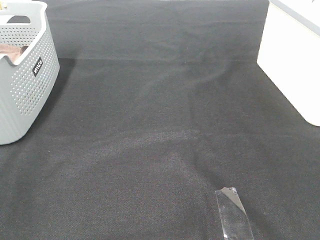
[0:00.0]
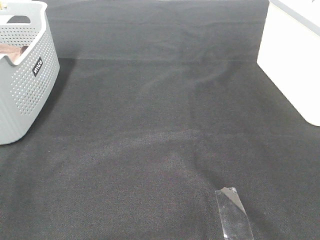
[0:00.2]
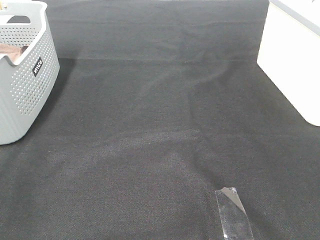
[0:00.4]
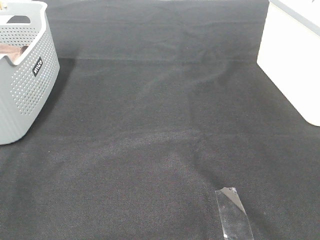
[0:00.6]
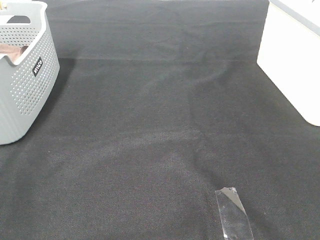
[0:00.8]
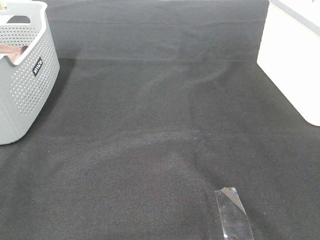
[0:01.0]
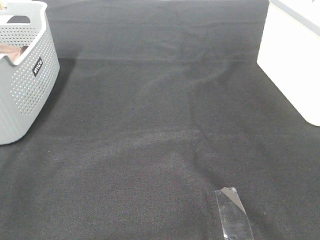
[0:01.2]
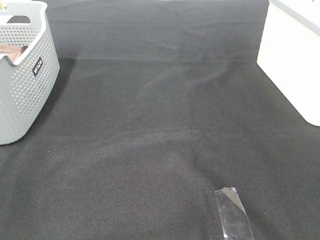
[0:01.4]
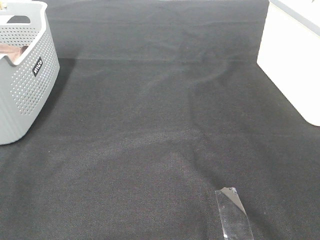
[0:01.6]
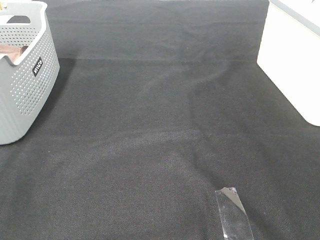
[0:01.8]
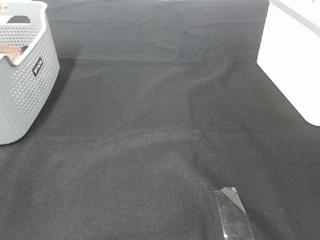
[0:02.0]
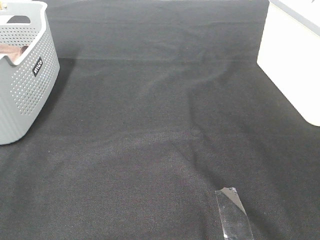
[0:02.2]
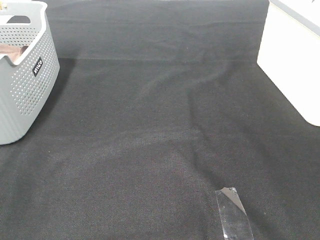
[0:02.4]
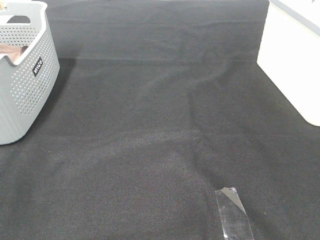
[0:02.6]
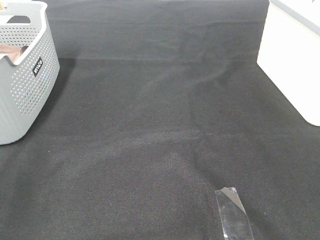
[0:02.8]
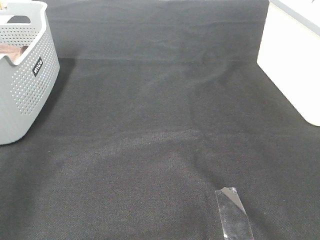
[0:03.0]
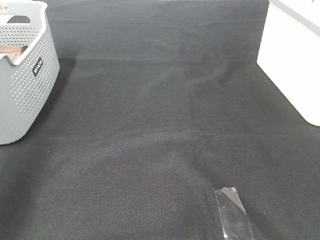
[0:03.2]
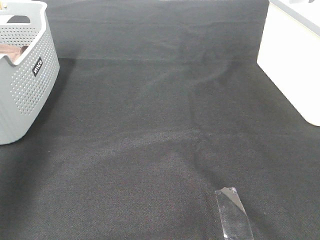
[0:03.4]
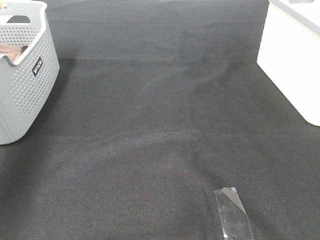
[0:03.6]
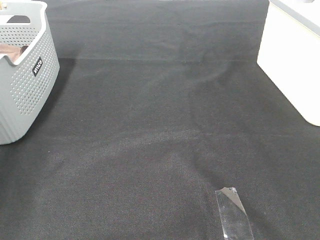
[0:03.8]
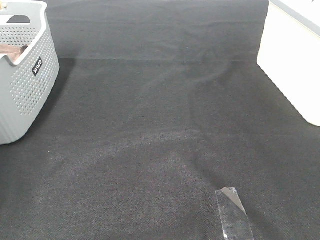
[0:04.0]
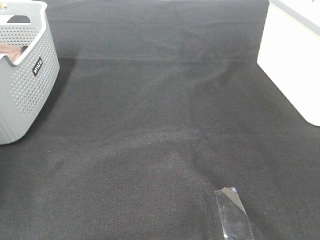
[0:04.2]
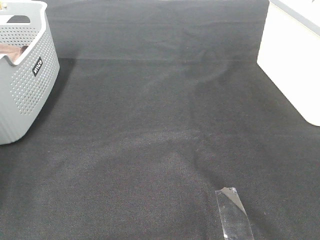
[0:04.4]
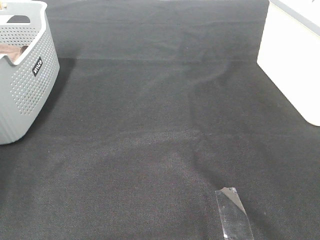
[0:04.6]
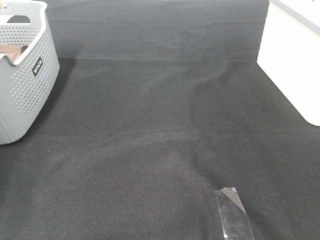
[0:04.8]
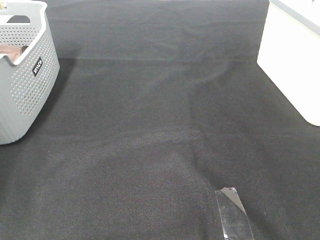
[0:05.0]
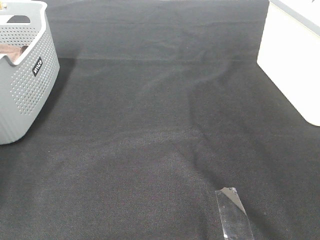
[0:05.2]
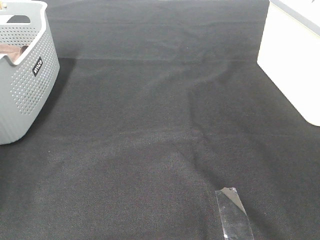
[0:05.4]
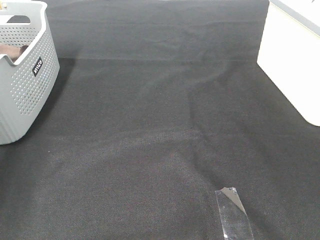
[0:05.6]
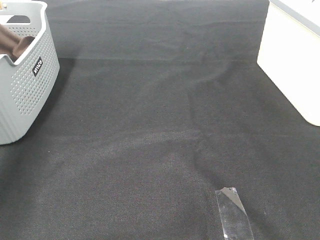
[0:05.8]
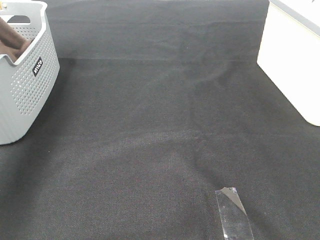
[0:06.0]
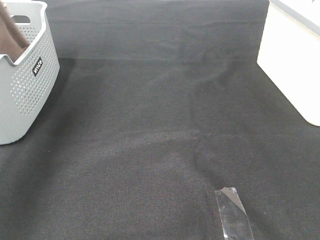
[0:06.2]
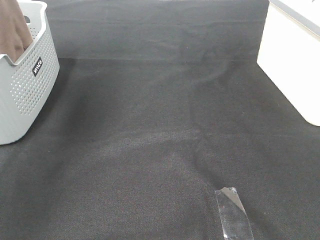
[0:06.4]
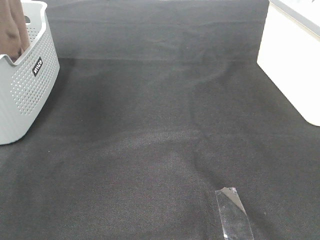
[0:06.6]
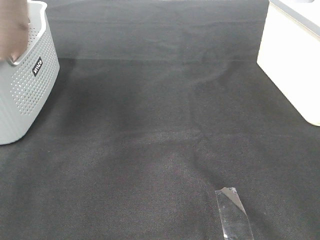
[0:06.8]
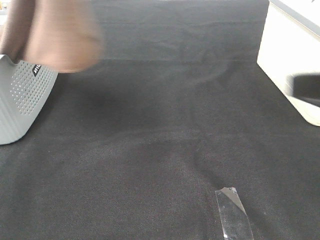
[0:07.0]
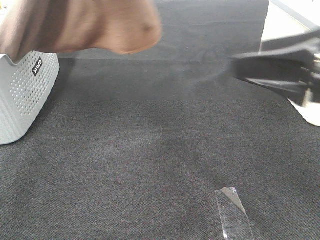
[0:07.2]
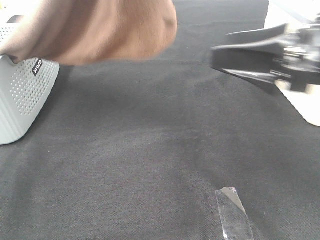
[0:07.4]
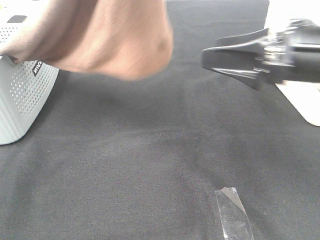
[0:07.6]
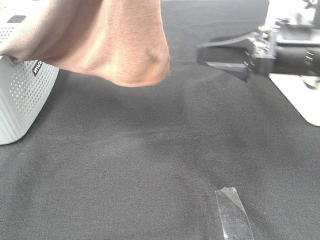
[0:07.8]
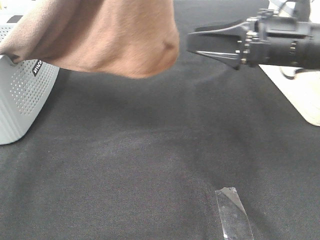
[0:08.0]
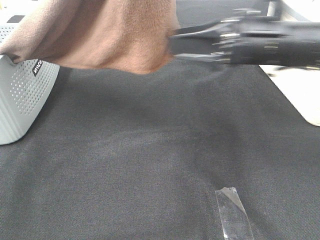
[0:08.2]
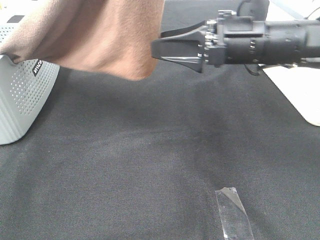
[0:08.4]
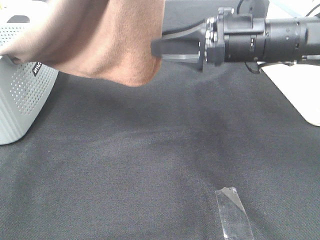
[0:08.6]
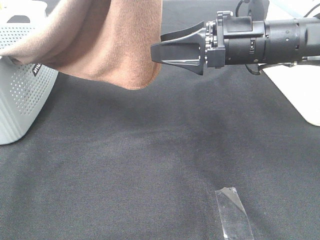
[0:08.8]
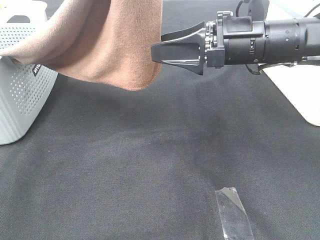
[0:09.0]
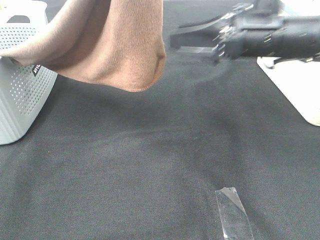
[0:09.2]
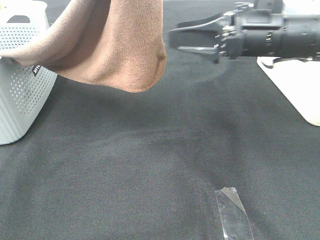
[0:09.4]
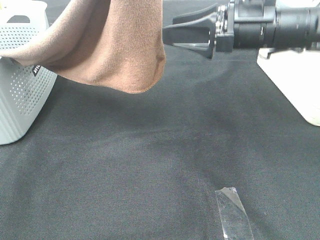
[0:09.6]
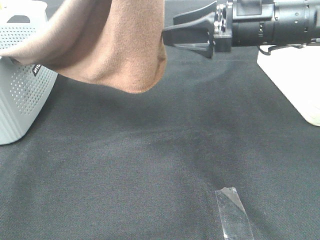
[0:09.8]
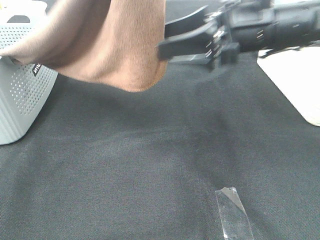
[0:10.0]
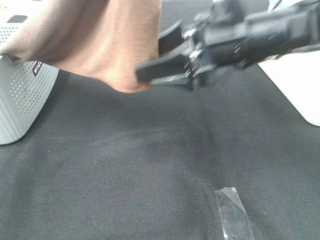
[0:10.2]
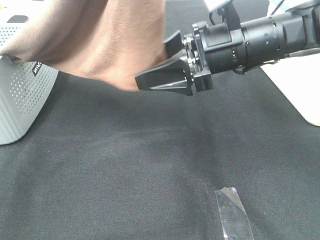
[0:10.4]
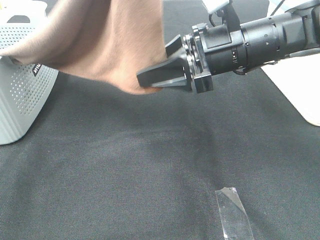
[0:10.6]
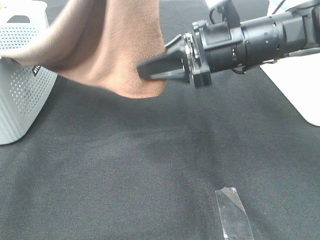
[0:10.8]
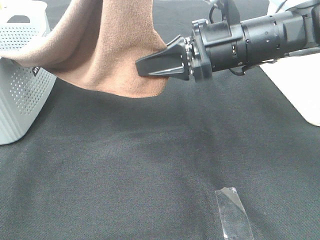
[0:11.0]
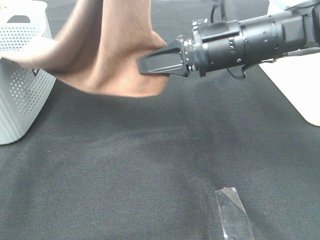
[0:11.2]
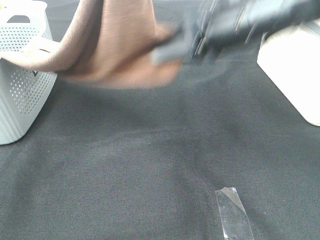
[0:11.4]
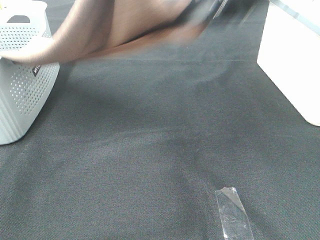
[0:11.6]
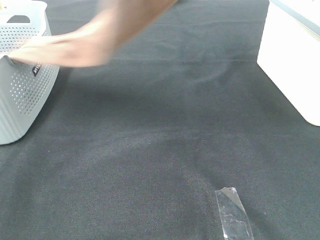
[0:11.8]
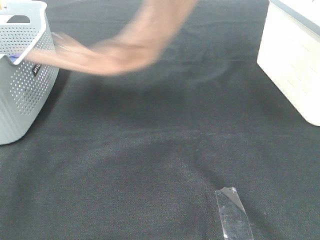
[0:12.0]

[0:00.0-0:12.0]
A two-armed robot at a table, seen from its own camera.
Task of the whole recording: Remove the towel and place it.
Step, 0:06.6 to 0:10.4: Right hand: grab a corner of the brown towel and straighten it.
0:00.0 to 0:01.6: Both grippers stay put.
0:04.4 to 0:06.0: The left gripper moves upward and to the right, roughly 25 cm, and closes up.
0:06.0 to 0:07.6: The right gripper is displaced forward by some 25 cm. Meanwhile the left gripper shifts about 30 cm to the right and backward.
0:07.6 to 0:09.0: The right gripper moves forward and to the left, roughly 10 cm.
0:09.0 to 0:10.4: The grippers make only small movements.
0:10.4 to 0:12.0: The right gripper moves upward, roughly 25 cm, and closes. The left gripper is displaced forward and to the left by some 10 cm.

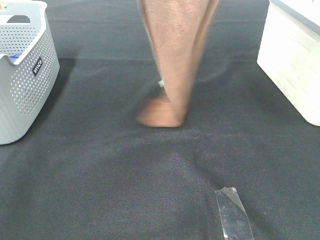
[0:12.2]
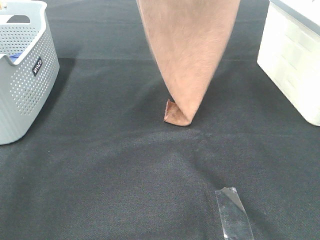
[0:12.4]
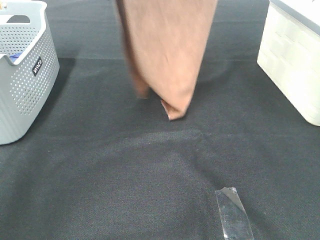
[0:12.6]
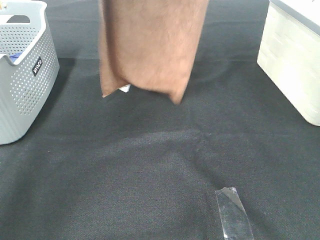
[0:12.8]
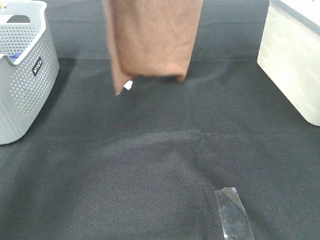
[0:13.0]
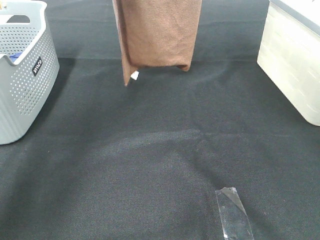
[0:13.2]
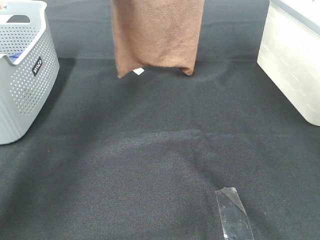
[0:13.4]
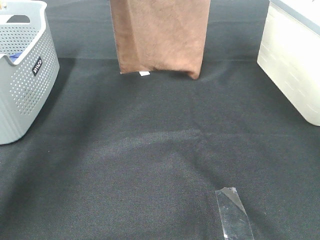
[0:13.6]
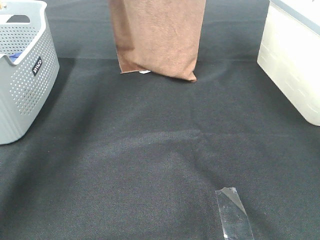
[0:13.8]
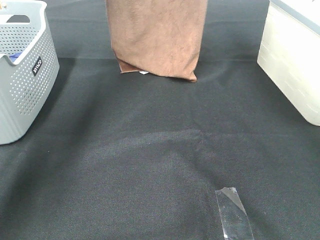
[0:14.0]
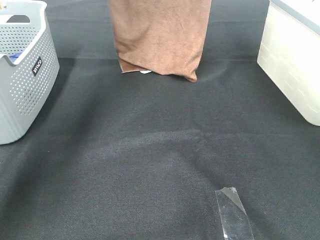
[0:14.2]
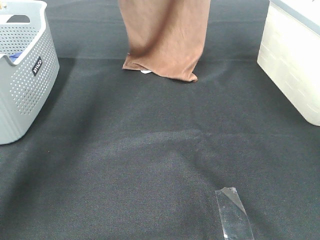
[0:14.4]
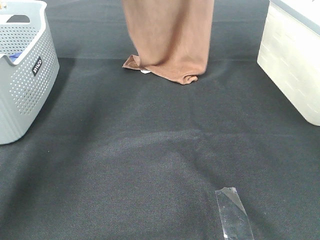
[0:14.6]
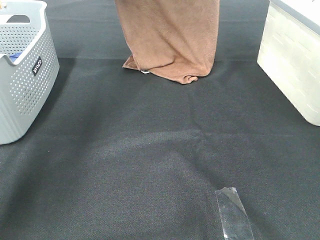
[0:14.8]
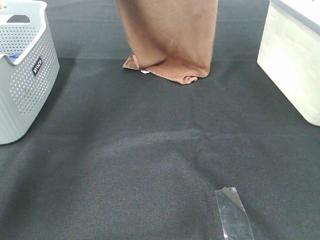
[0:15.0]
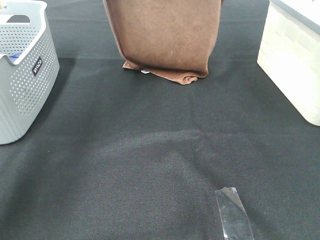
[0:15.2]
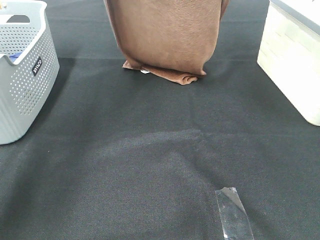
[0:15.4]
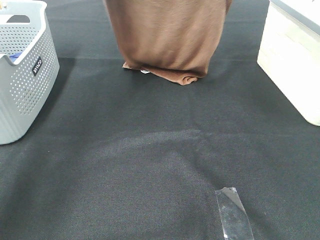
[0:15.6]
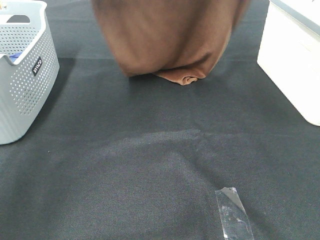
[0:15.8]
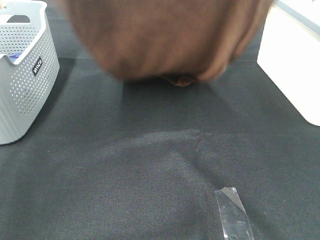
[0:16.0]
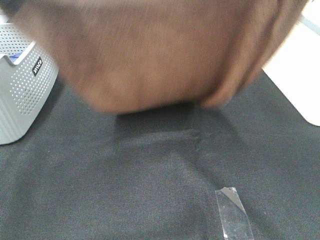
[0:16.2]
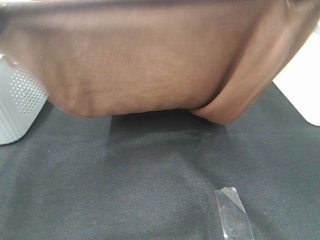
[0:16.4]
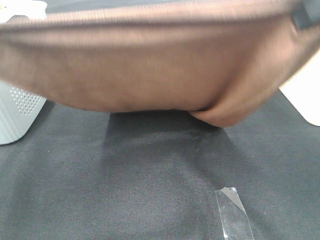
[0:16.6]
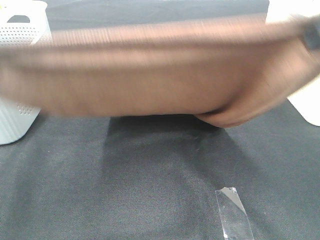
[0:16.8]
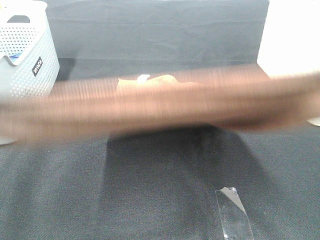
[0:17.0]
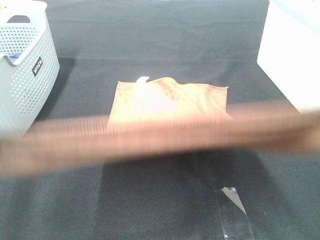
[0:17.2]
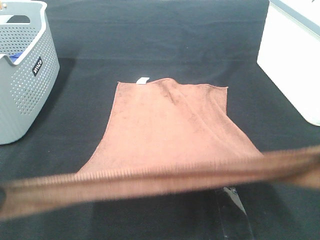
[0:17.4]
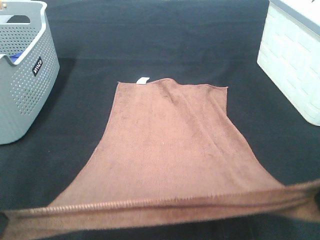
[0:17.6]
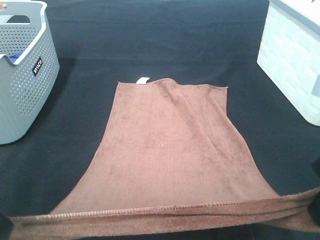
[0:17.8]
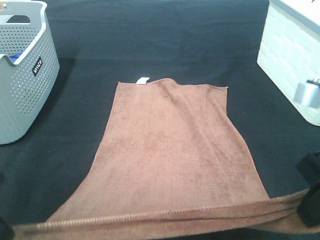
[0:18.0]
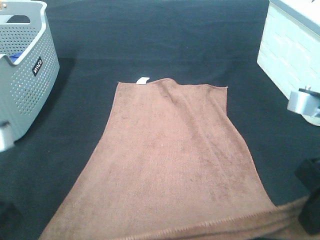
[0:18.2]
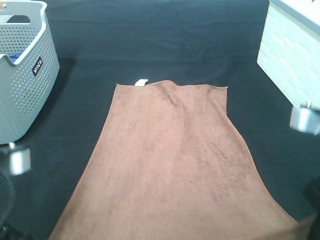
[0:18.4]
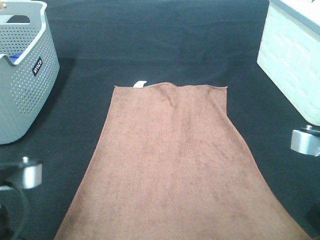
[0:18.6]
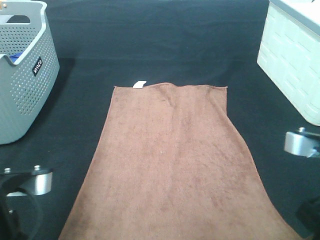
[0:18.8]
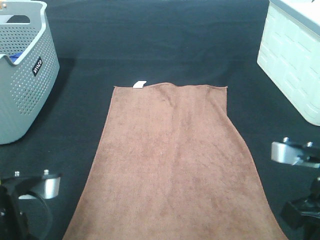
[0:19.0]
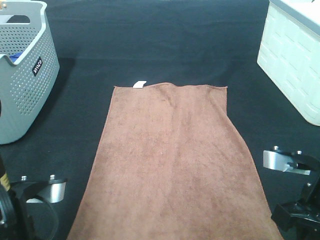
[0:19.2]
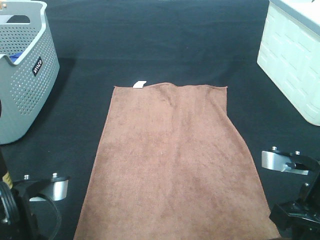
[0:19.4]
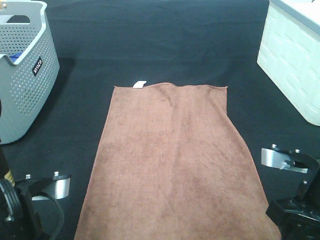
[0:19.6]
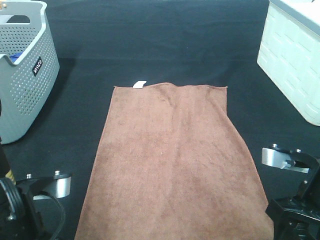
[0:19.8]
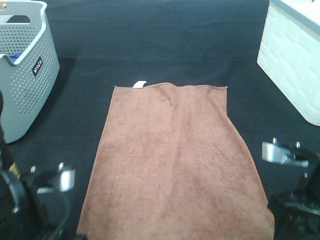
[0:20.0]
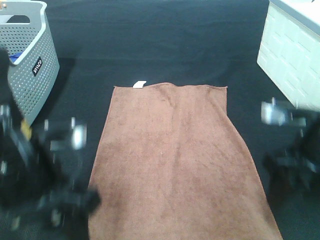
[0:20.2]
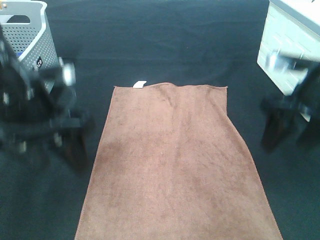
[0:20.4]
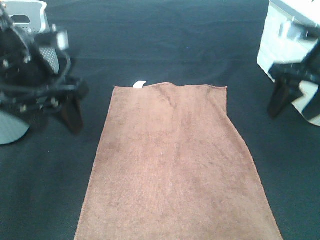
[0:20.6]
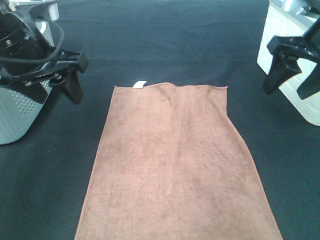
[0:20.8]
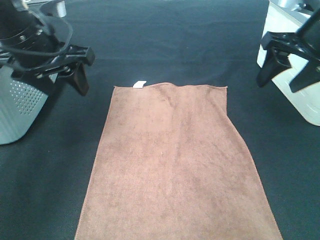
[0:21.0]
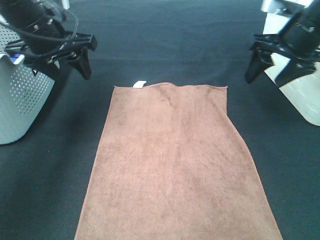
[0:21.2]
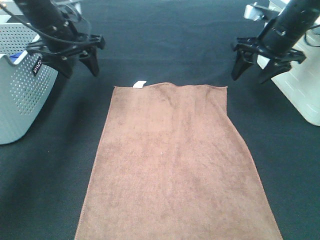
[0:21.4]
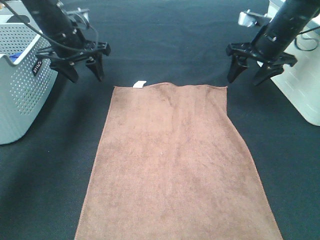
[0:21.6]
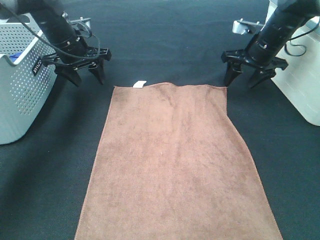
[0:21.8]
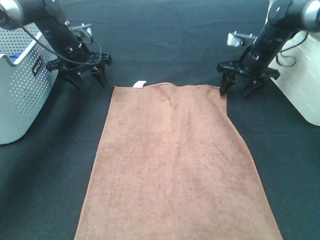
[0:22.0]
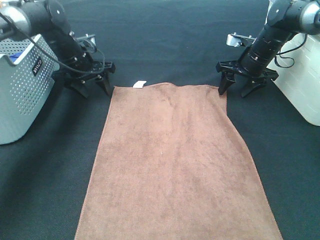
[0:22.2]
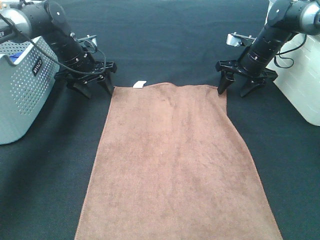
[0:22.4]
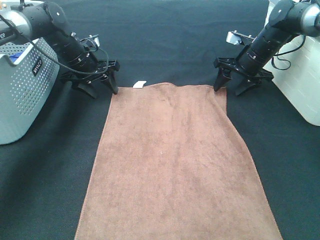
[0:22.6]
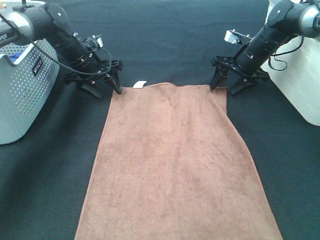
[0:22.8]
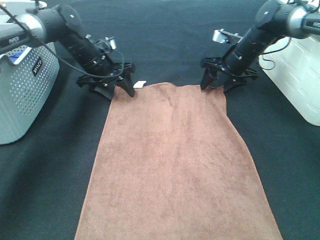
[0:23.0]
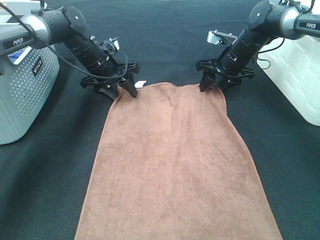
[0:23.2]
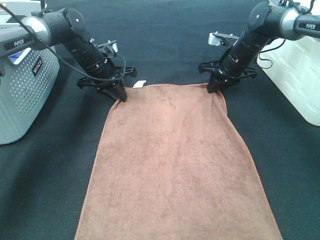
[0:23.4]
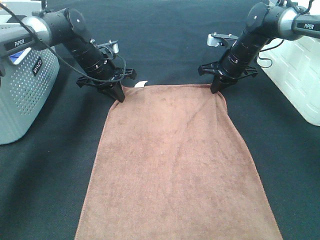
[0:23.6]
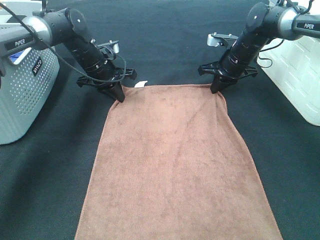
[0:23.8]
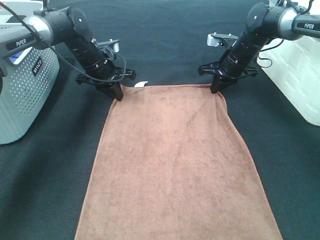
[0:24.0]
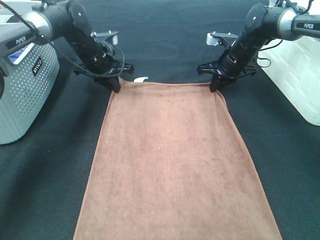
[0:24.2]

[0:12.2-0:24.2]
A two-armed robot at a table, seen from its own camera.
Task of the whole recording: Remove the towel and place it.
Step, 0:12.2 to 0:15.8: Left hand: spread the brown towel flat on the table.
Step, 0:12.2 to 0:15.8: Right hand: spread the brown towel flat on the table.
Step, 0:16.0 to 0:23.8: Left hand:adjust the brown towel.
Step, 0:16.0 to 0:23.8: Right hand:adjust the brown towel.
0:12.2 to 0:13.8: The right gripper goes about 15 cm forward; the left gripper shifts about 20 cm forward and downward.
0:13.8 to 0:15.2: The two grippers go approximately 10 cm backward.
0:15.2 to 0:16.6: The grippers both shift backward by approximately 25 cm.
0:16.6 to 0:18.2: Both grippers move downward, approximately 15 cm.
0:18.2 to 0:19.8: Both grippers move downward, approximately 5 cm. The left gripper opens. The right gripper opens up.
0:19.8 to 0:21.2: Both grippers move forward, some 25 cm.
0:21.2 to 0:22.6: The two grippers go about 20 cm downward and forward.
0:22.6 to 0:24.2: The right gripper closes its fingers. The left gripper closes up.